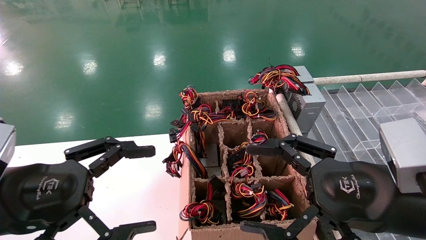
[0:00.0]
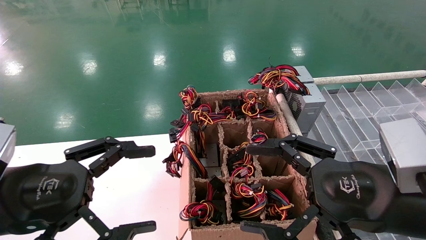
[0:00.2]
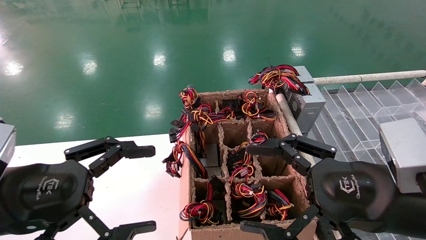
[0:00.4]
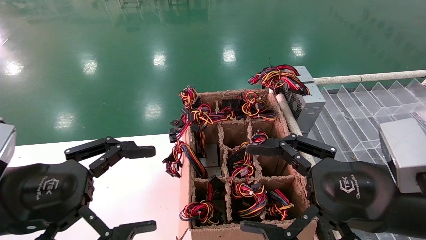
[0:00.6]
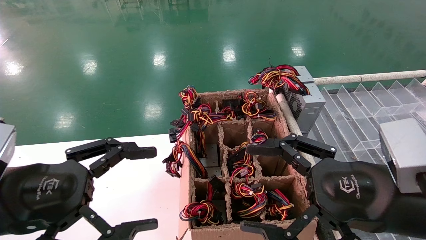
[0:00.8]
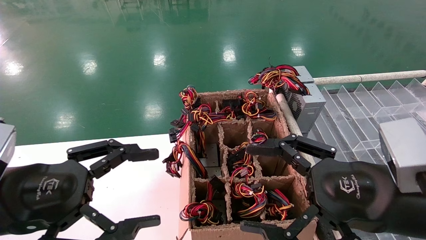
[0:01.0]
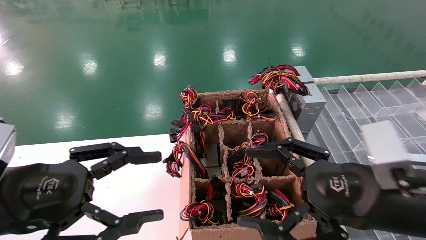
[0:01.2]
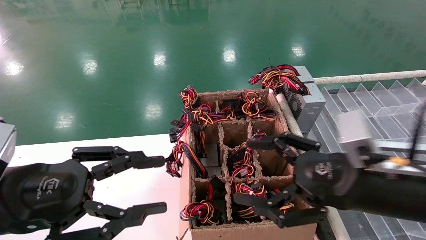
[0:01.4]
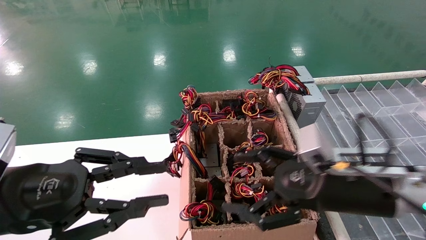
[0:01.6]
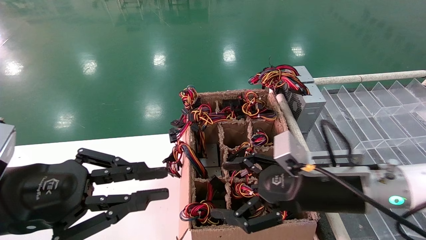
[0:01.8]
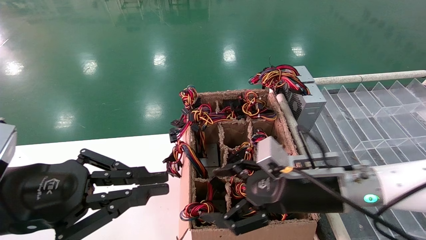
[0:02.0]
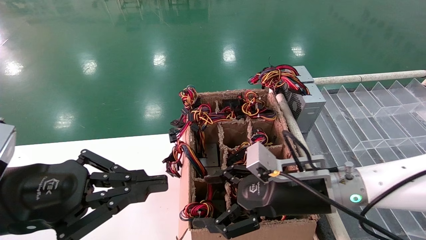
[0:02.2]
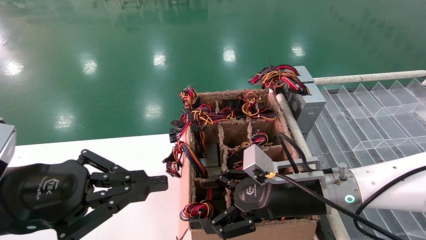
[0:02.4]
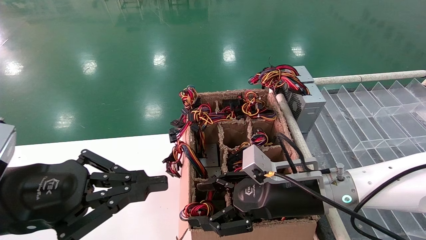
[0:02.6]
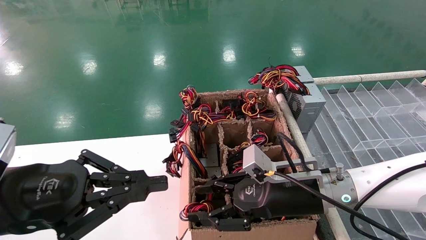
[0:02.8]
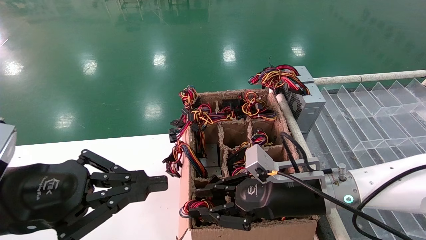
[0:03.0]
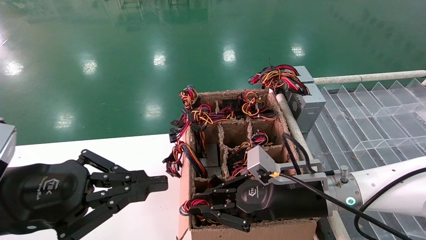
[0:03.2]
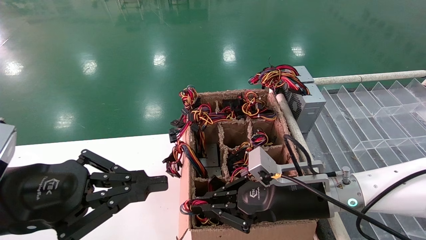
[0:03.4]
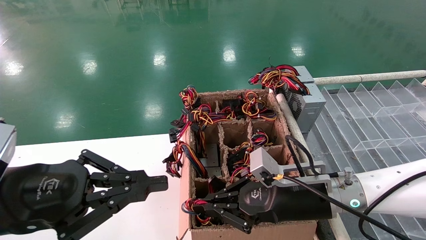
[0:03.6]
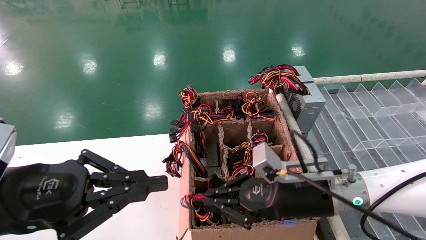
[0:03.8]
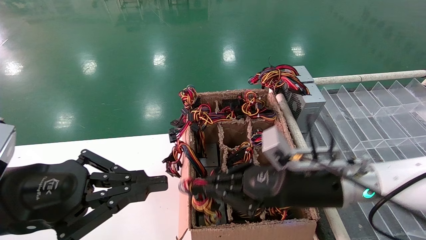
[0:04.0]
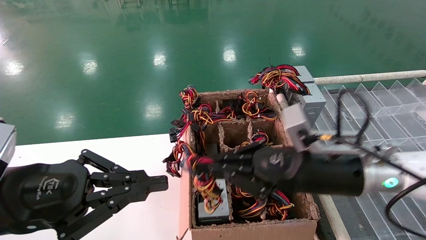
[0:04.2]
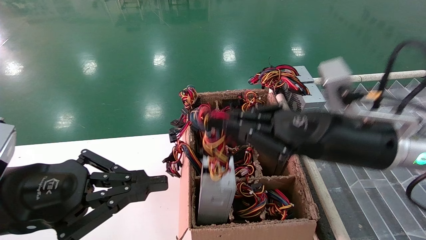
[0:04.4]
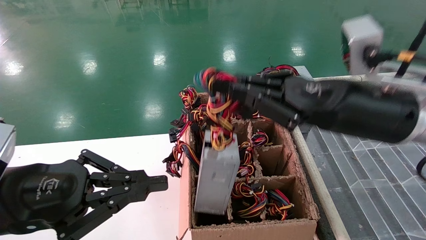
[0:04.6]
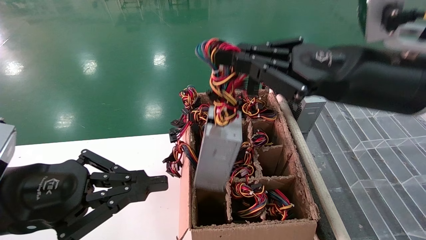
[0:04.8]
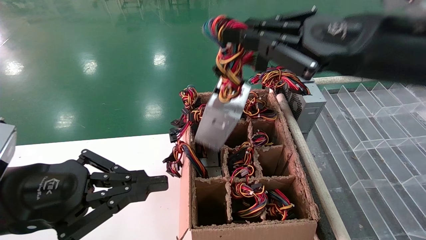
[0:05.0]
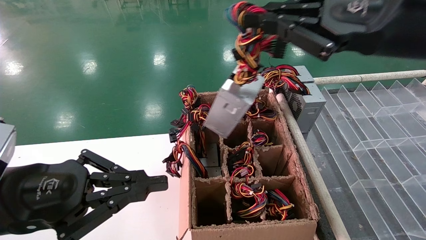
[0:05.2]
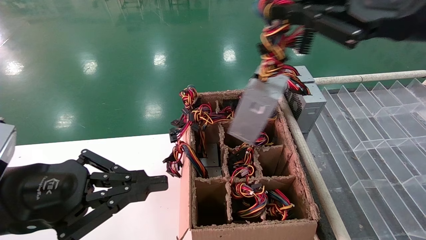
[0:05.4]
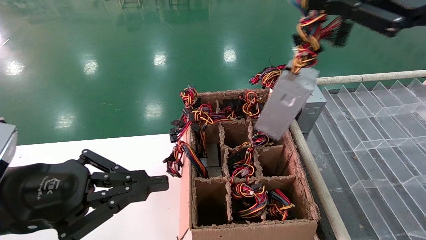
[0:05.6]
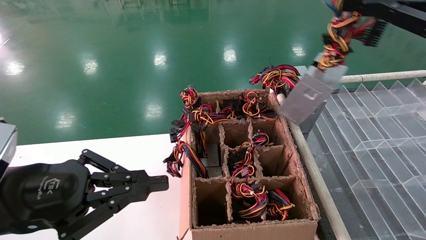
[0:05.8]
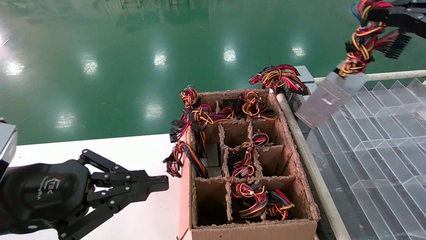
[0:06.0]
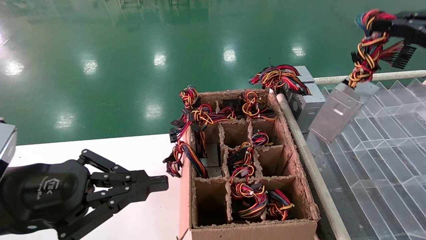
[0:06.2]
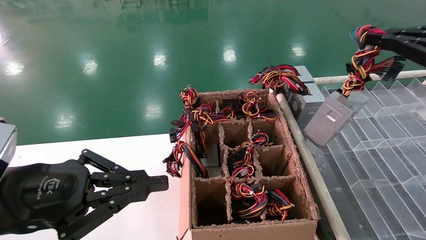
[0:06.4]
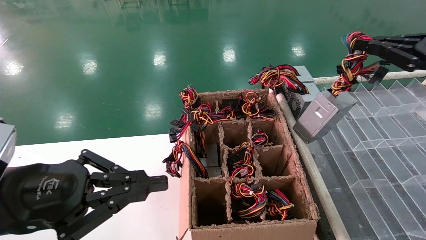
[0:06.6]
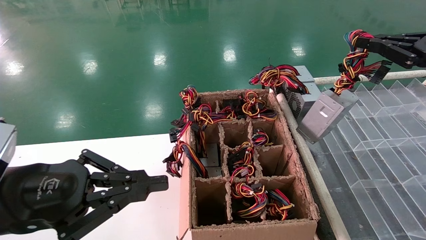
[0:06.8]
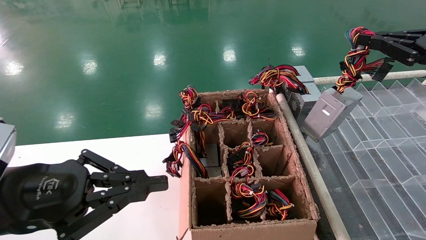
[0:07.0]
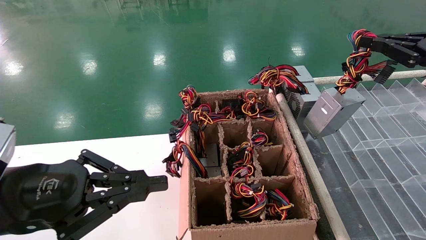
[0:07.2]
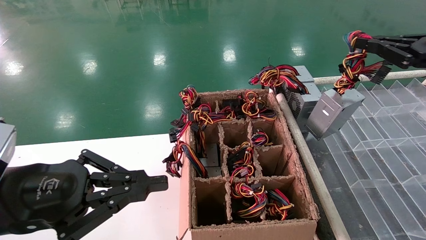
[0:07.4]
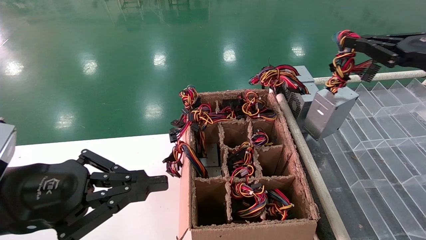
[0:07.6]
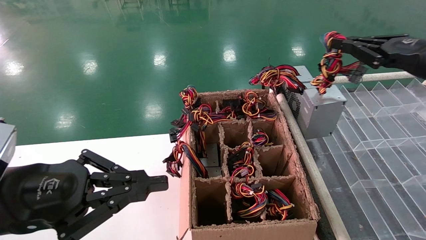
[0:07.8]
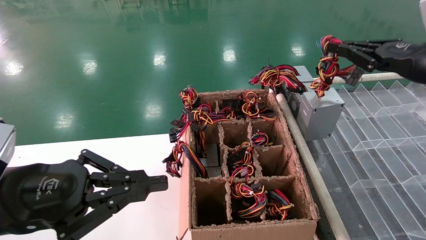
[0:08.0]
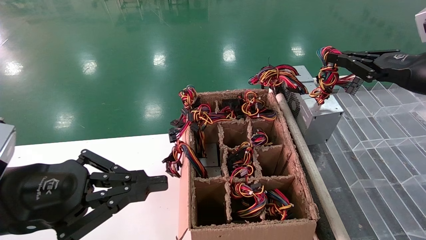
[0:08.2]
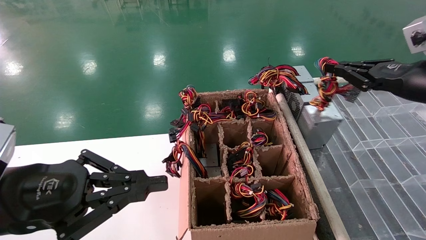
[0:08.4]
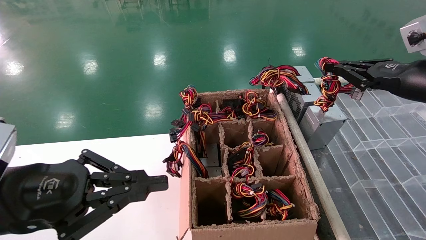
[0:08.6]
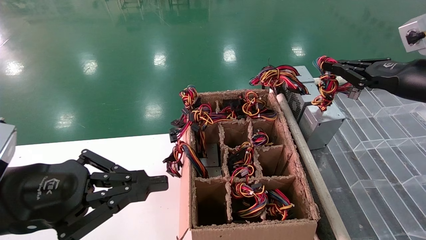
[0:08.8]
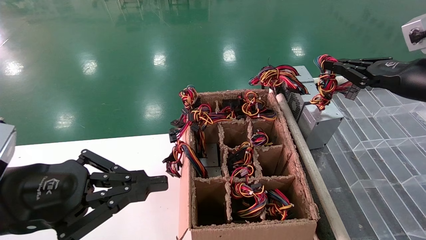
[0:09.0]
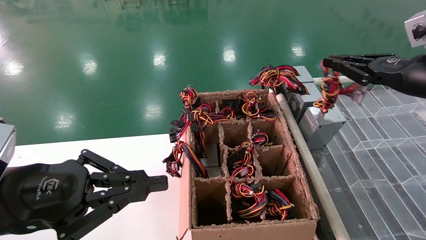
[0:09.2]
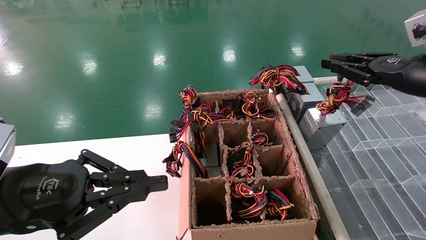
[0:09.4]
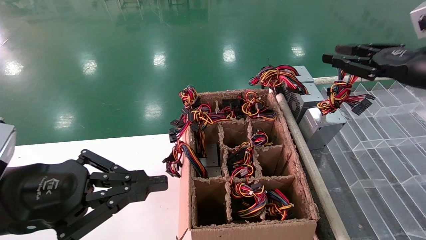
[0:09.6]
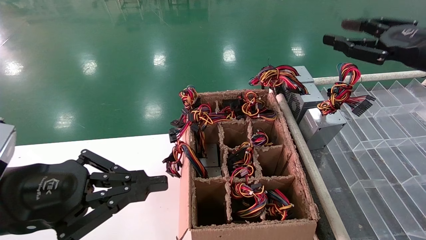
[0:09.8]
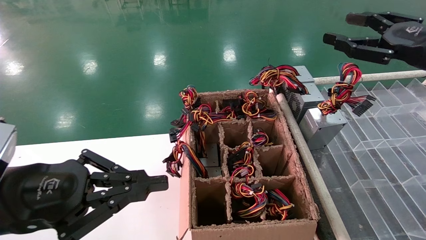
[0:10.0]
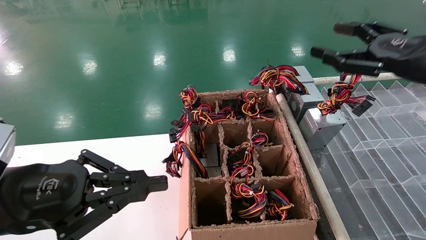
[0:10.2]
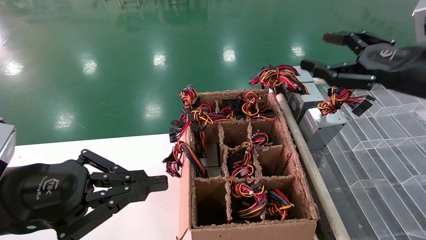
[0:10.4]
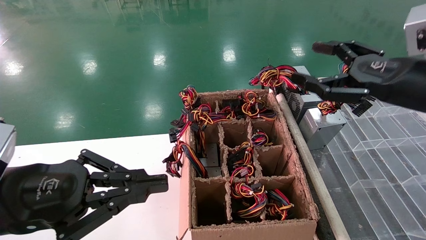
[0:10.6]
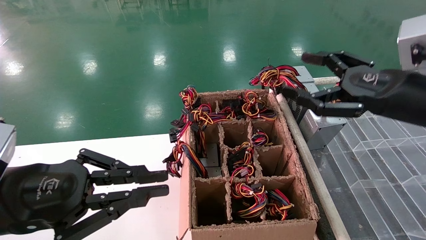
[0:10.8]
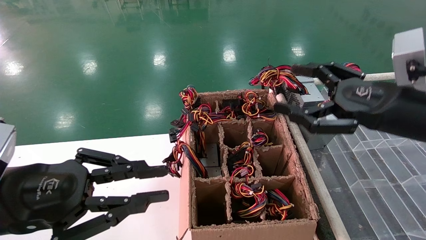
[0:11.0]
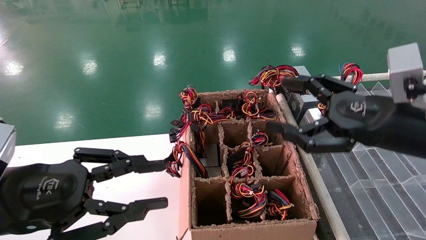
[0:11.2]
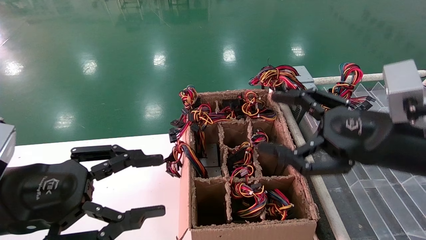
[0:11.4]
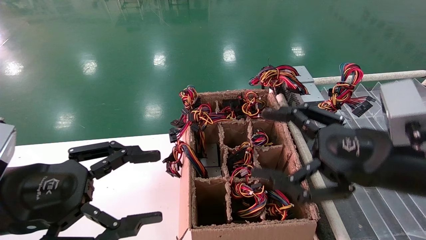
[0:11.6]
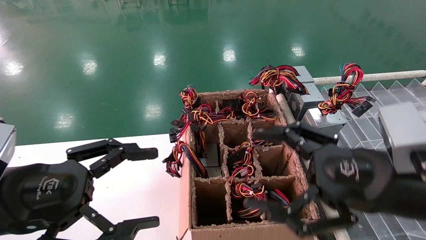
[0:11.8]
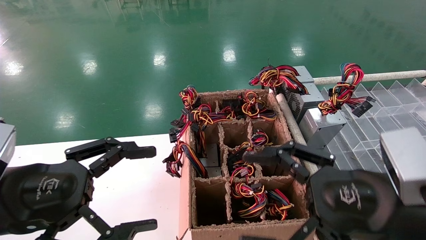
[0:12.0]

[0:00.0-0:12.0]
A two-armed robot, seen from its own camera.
Step, 0:01.4 to 0:03.6: Grab the main unit power supply from the containment box.
Step, 0:03.8 to 0:09.4: Place the main unit power supply in the designated area.
0:00.0 to 0:01.6: The left gripper closes its fingers. Meanwhile the right gripper travels forward by some 5 cm.
0:01.6 to 0:03.0: The left gripper closes up; the right gripper travels forward, downward and to the left by some 10 cm, and closes.
0:03.0 to 0:04.4: The right gripper is displaced upward by roughly 10 cm, and closes its fingers.
0:04.4 to 0:06.0: The right gripper travels to the right and upward by about 25 cm.
0:06.0 to 0:07.6: The right gripper moves forward, about 10 cm.
0:07.6 to 0:09.0: The right gripper changes place by roughly 5 cm.
0:09.0 to 0:10.4: The right gripper changes place by some 5 cm, and opens.
0:10.4 to 0:12.0: The right gripper heads downward, to the left and backward, covering some 20 cm. Meanwhile the left gripper opens up.

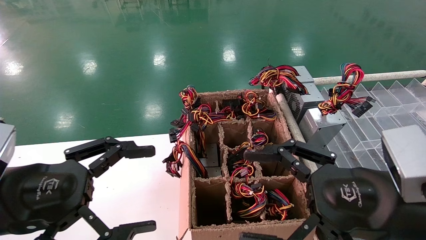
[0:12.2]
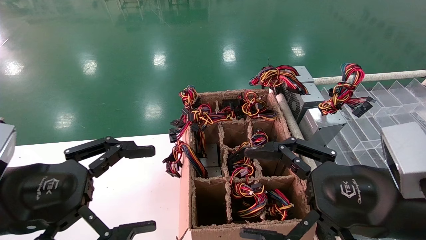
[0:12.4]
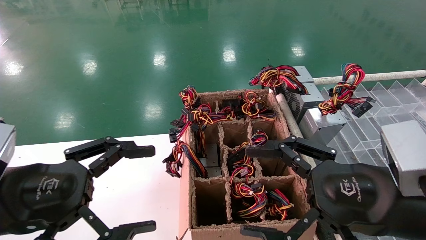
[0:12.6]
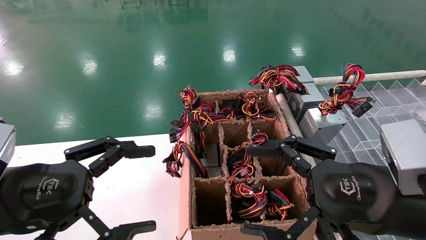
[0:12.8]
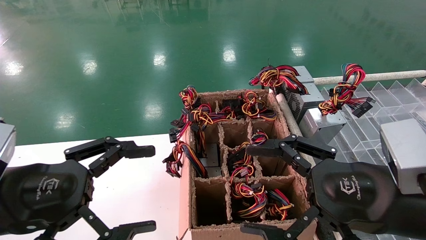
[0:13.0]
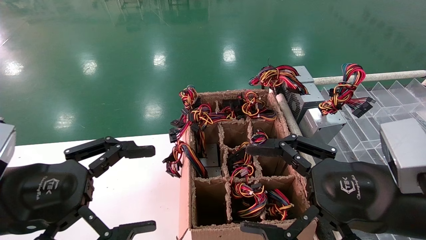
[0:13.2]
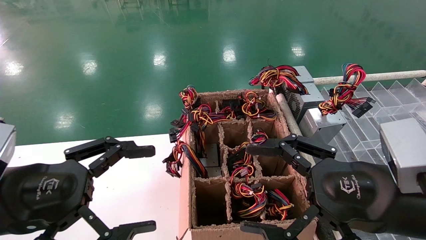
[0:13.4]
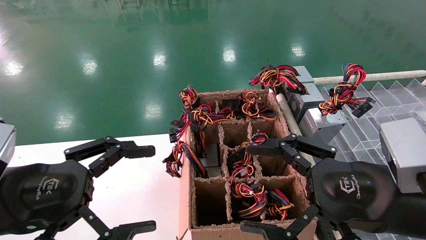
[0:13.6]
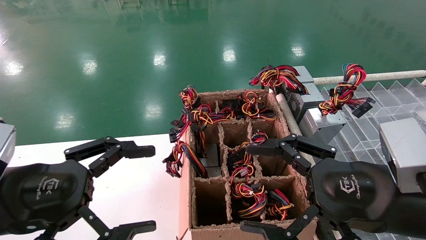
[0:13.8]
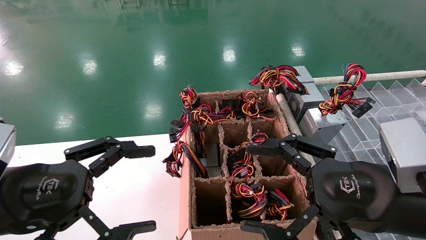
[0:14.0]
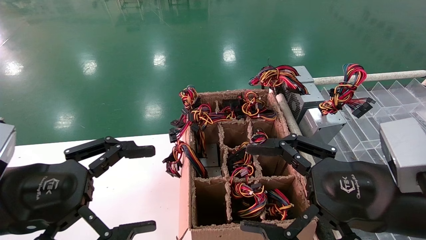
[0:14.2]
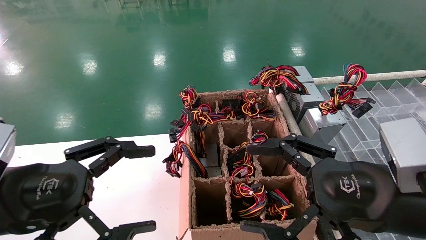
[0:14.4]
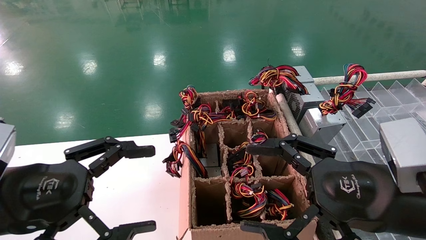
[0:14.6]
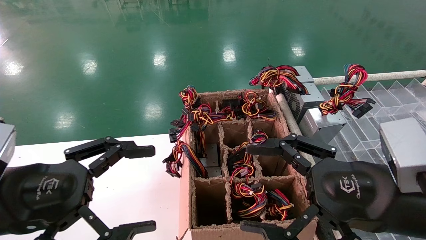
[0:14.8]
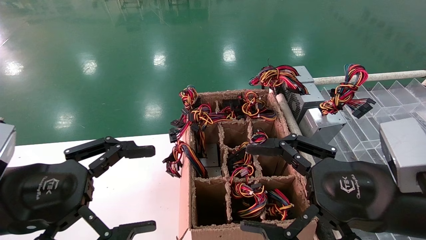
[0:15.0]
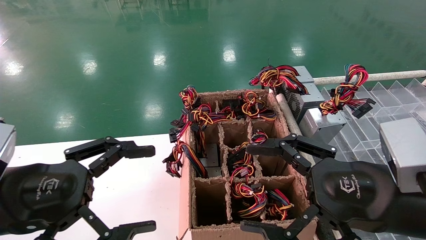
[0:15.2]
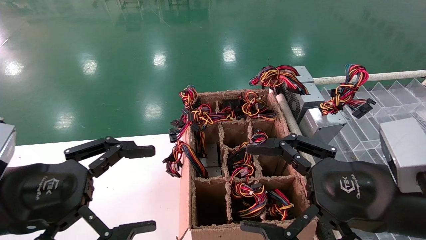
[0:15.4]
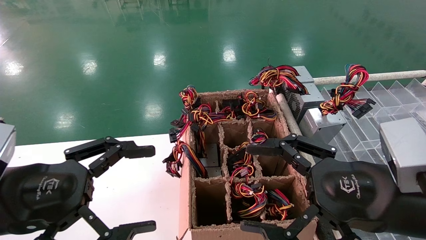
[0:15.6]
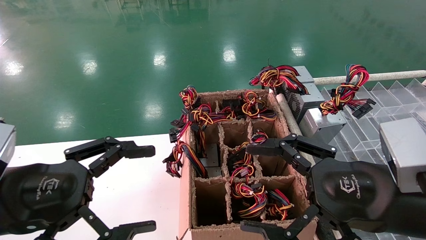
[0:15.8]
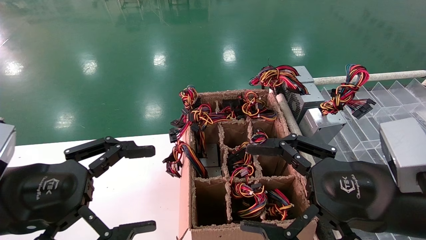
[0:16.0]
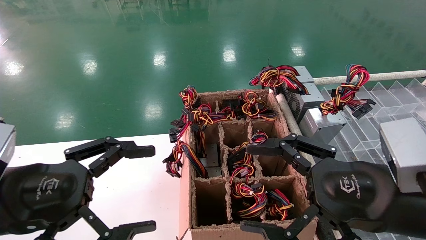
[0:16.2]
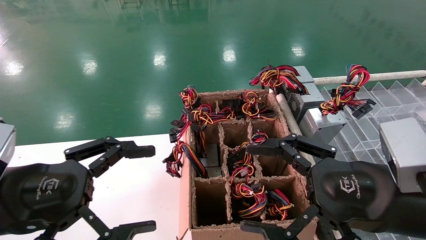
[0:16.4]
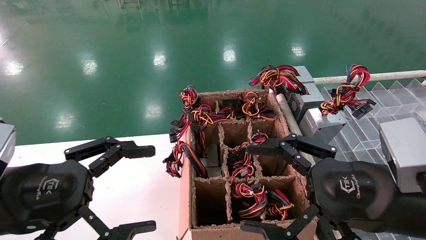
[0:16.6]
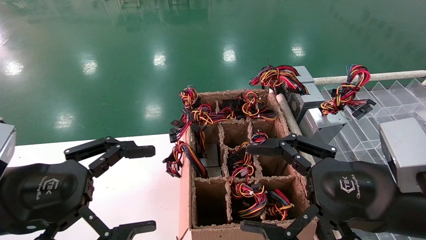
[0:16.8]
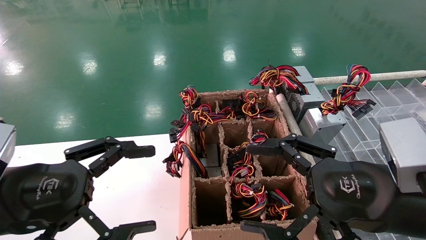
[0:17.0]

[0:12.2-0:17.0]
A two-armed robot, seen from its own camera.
0:12.2 to 0:17.0: Neither gripper changes place.
